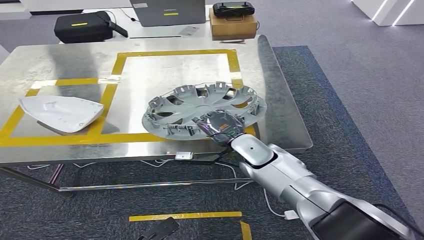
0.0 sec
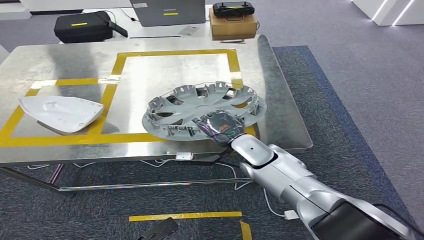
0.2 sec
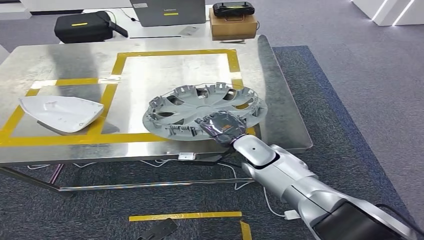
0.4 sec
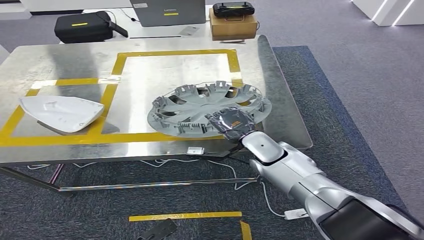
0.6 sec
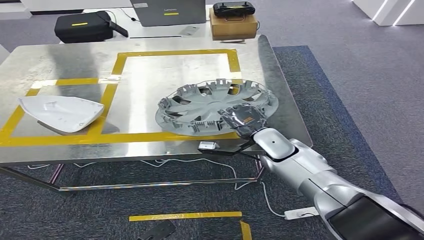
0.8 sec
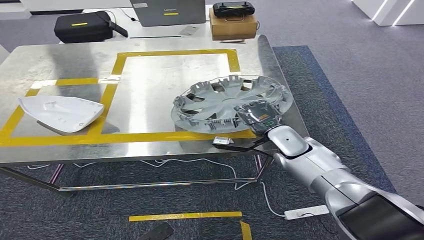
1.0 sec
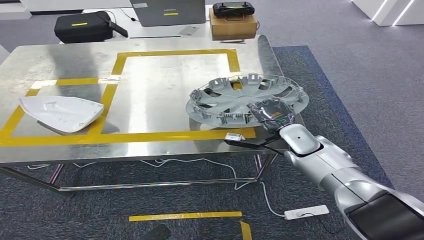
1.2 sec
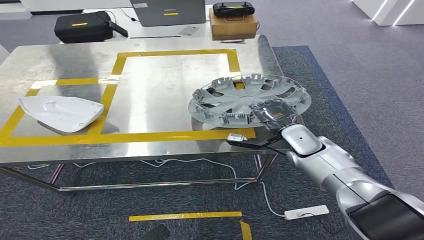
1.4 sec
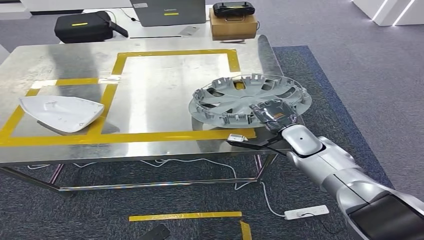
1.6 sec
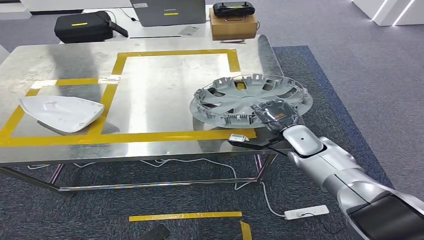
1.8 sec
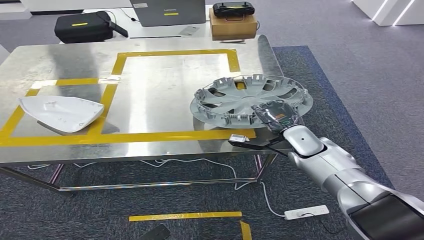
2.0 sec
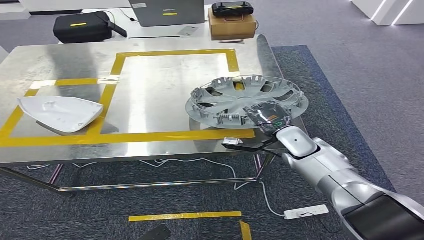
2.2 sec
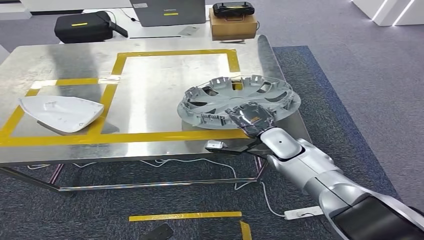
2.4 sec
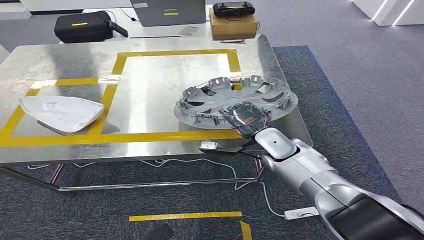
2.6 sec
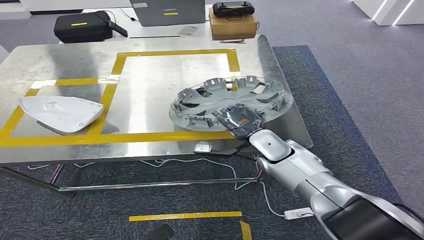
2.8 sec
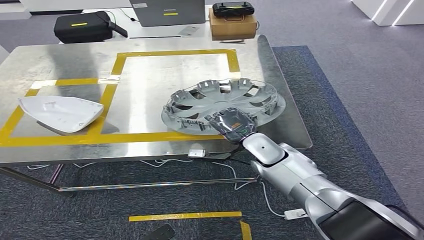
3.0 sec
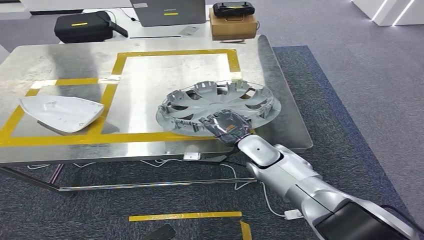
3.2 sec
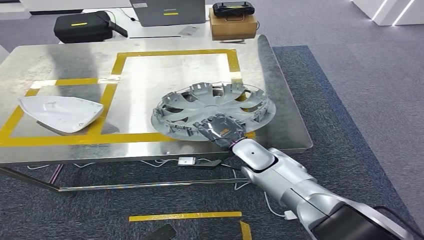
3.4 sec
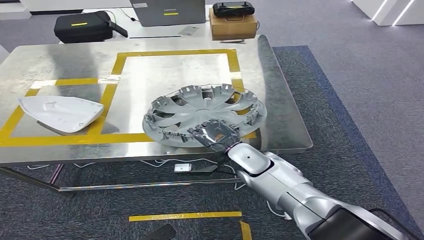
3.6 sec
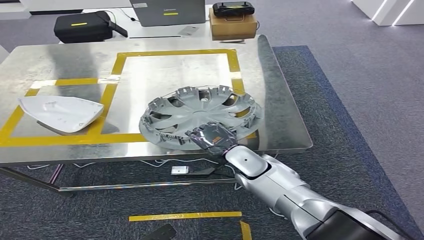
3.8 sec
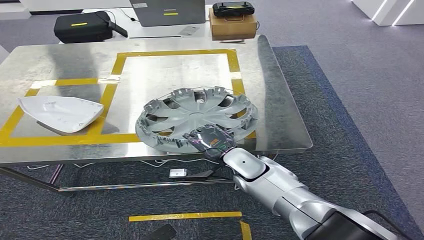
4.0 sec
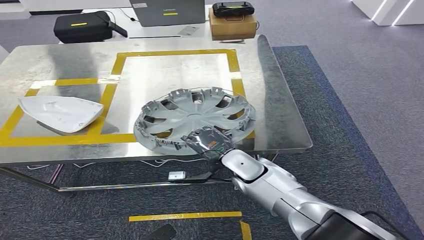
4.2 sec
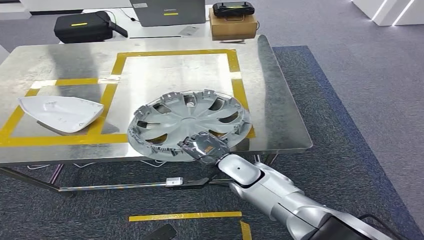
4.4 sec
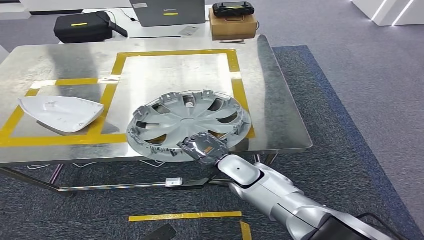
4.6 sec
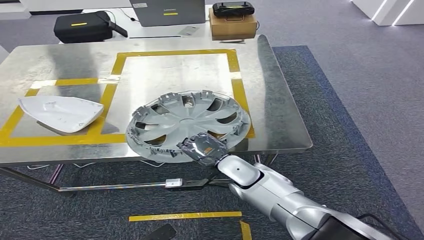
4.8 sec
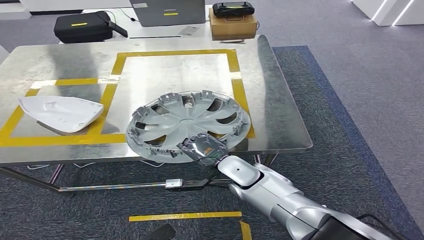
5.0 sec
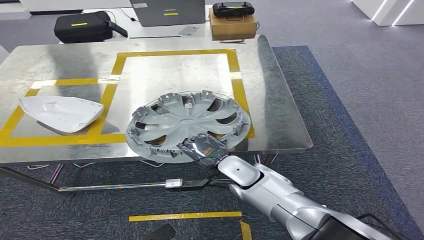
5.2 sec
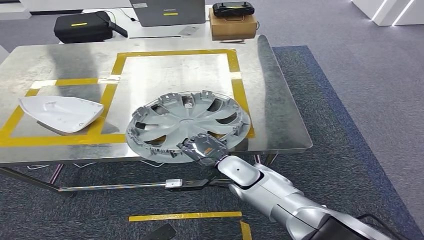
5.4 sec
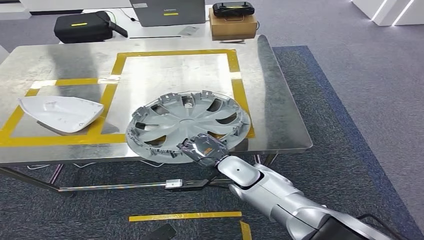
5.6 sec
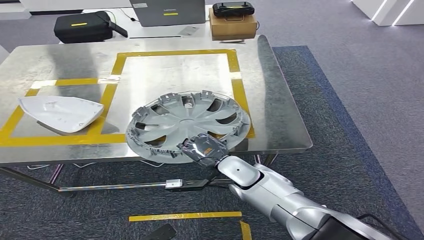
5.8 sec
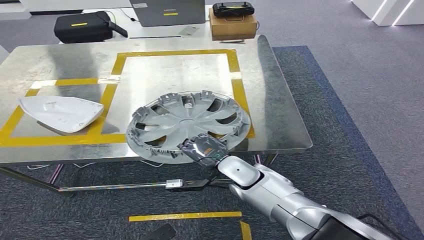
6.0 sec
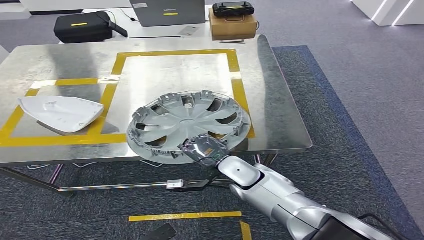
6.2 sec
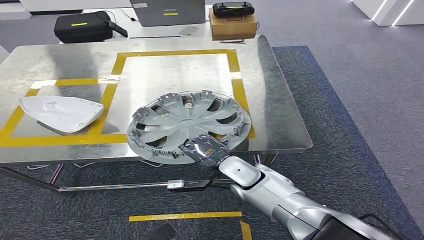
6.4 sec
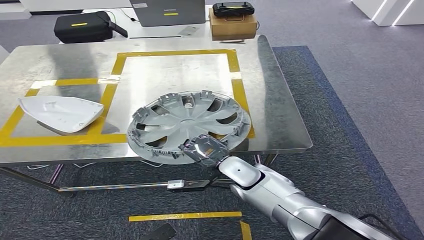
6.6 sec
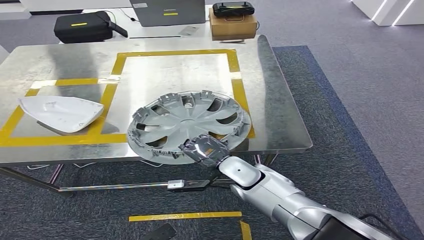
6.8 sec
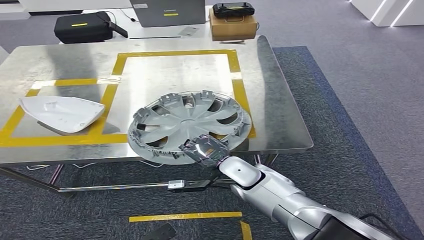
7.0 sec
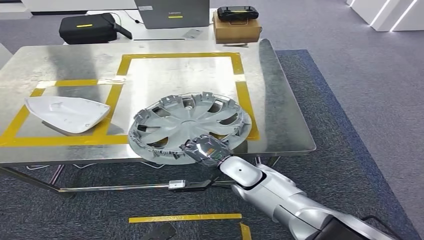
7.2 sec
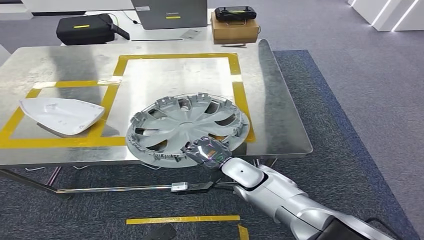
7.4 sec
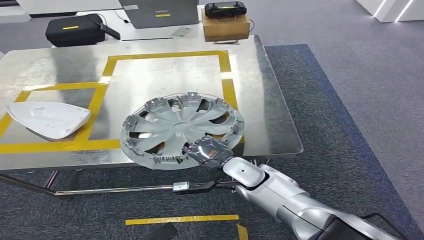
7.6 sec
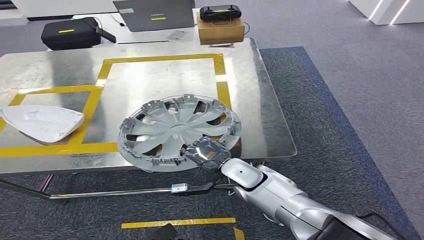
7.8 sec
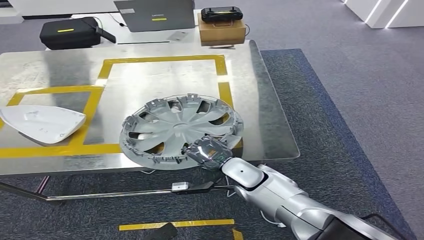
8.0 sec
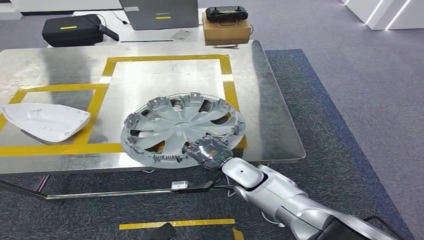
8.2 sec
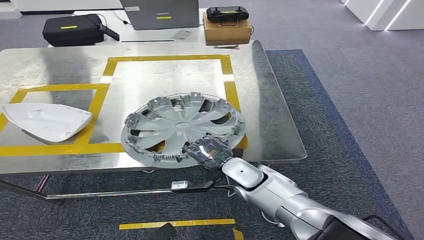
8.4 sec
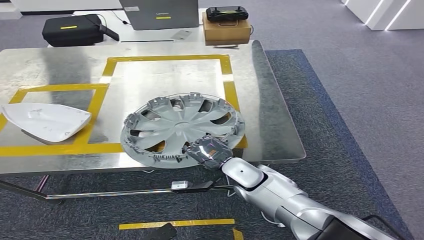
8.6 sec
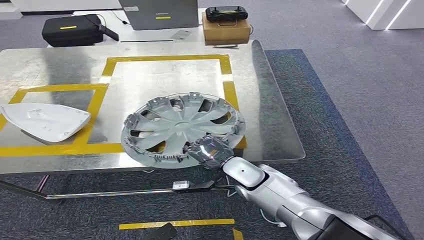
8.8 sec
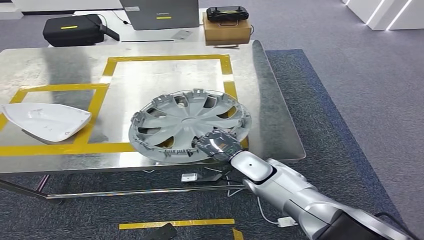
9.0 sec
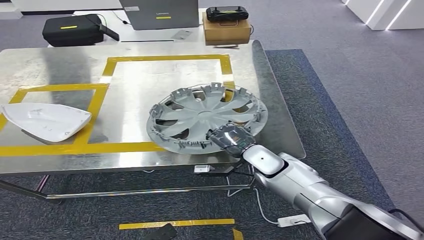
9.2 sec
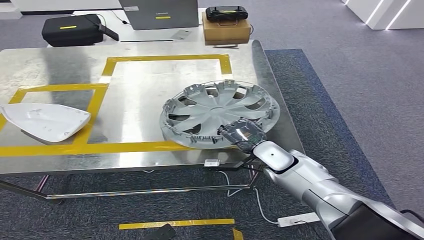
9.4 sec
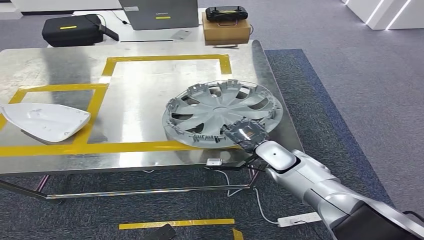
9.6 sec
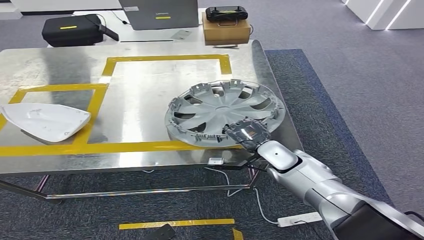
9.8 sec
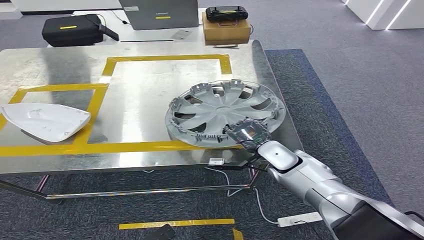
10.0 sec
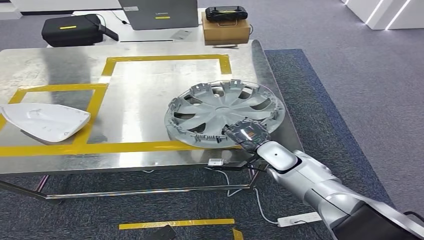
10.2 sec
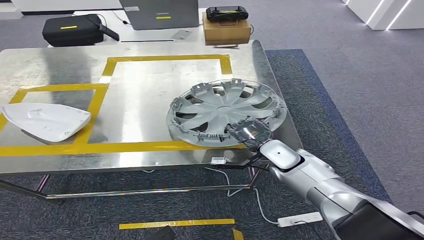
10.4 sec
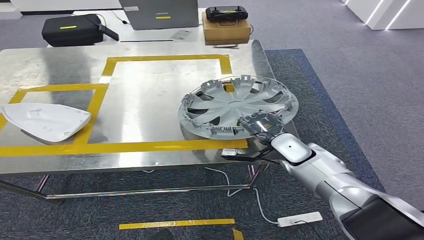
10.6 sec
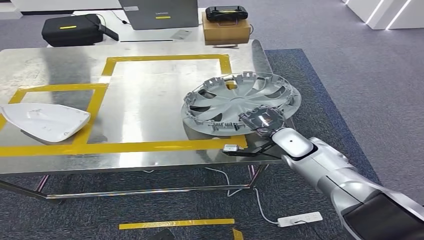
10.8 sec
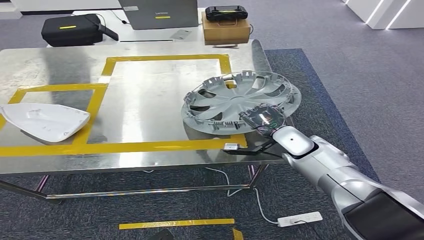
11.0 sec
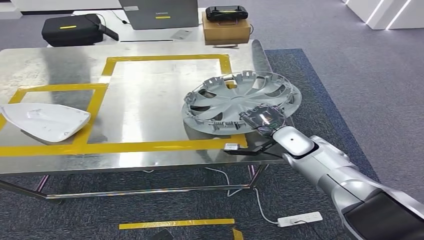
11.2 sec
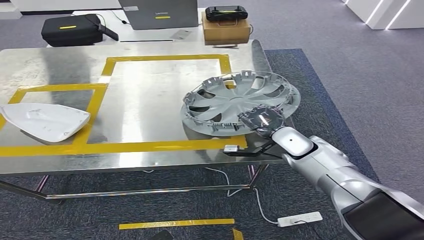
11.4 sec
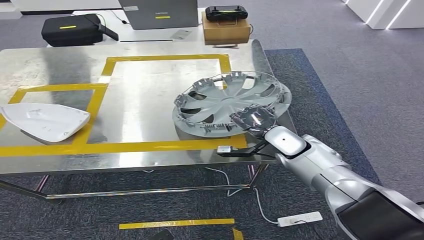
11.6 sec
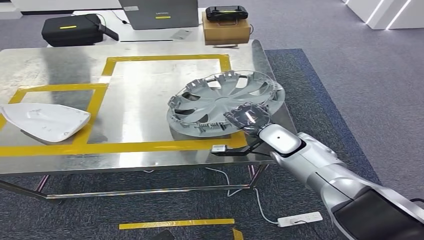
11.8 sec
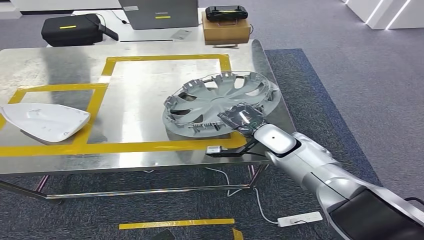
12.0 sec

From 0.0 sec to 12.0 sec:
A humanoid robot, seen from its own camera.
From 0.0 sec to 1.6 sec: The right hand goes some 10 cm to the right and forward.
From 1.6 sec to 3.0 sec: The right hand is displaced to the left by some 10 cm.
From 3.0 sec to 4.4 sec: The right hand moves backward, roughly 5 cm.
From 4.4 sec to 6.0 sec: Both hands stay about where they are.
From 9.0 sec to 10.4 sec: The right hand moves to the right, about 5 cm.
From 10.4 sec to 12.0 sec: The right hand ends up approximately 5 cm from where it was.

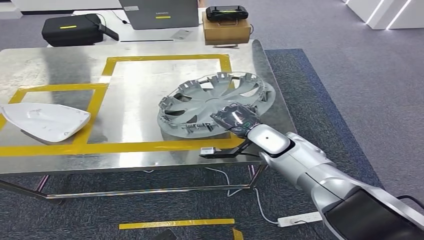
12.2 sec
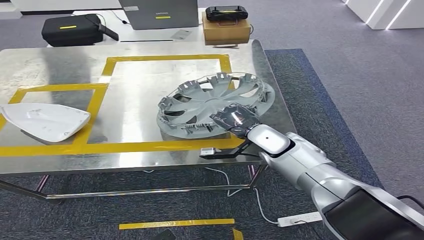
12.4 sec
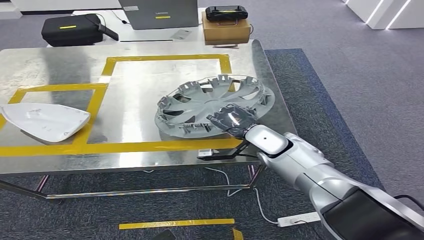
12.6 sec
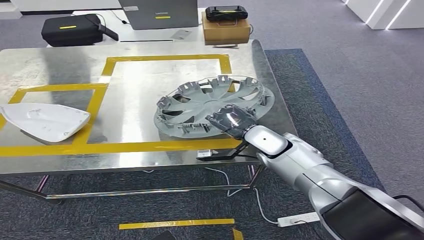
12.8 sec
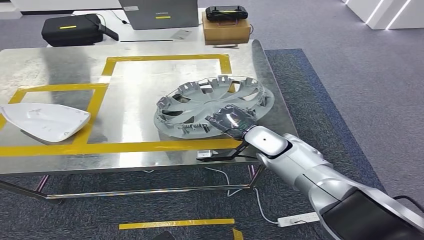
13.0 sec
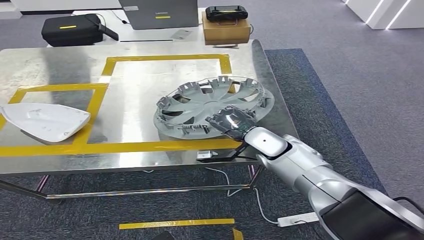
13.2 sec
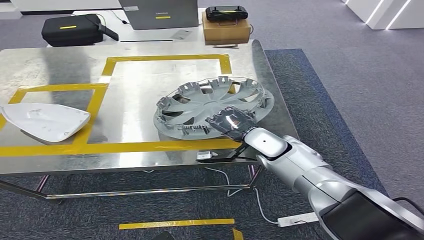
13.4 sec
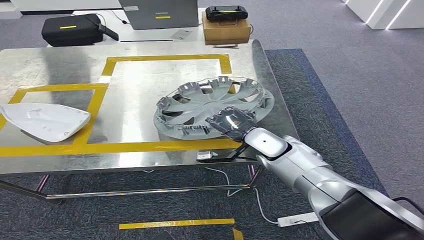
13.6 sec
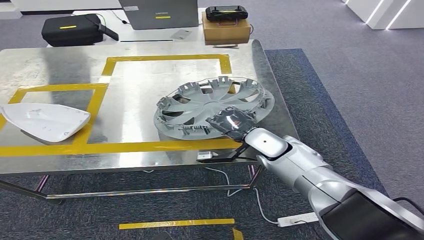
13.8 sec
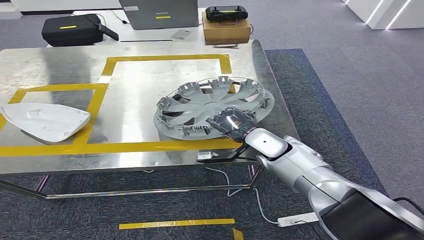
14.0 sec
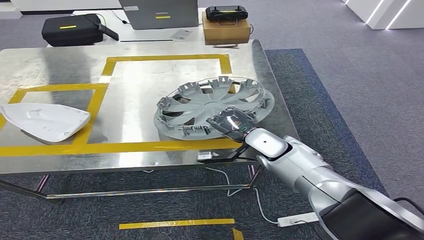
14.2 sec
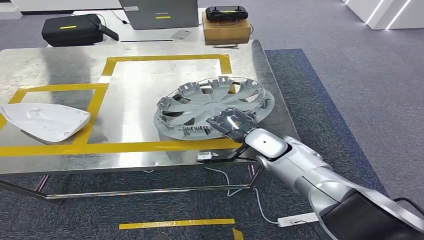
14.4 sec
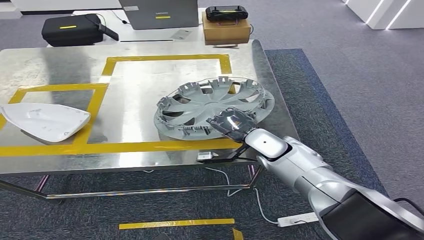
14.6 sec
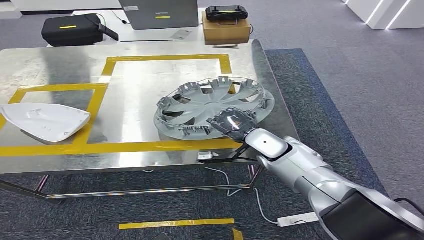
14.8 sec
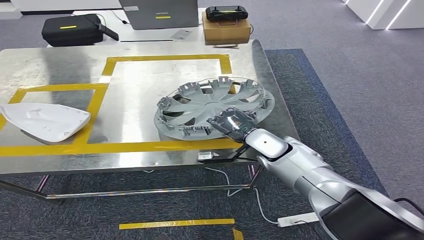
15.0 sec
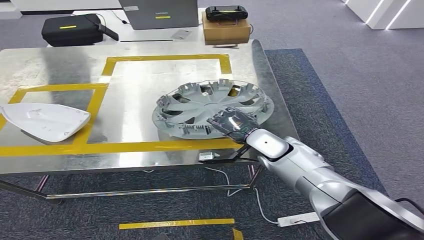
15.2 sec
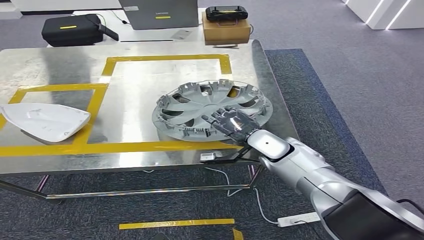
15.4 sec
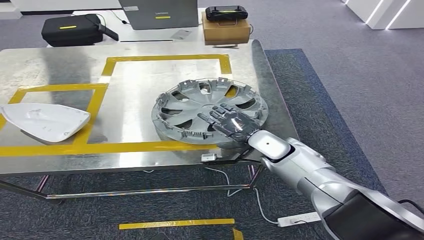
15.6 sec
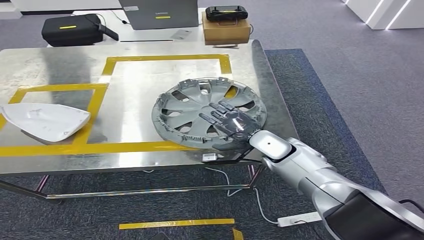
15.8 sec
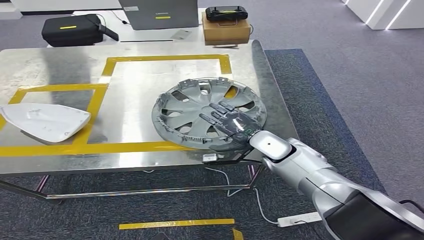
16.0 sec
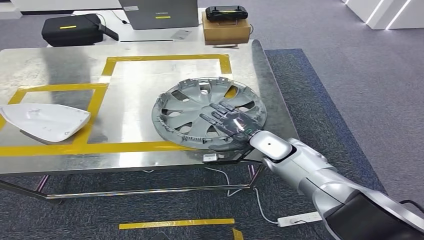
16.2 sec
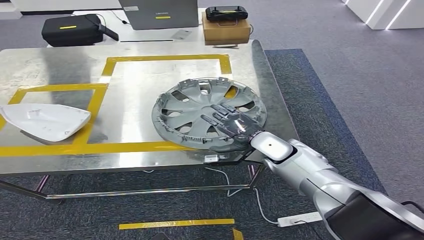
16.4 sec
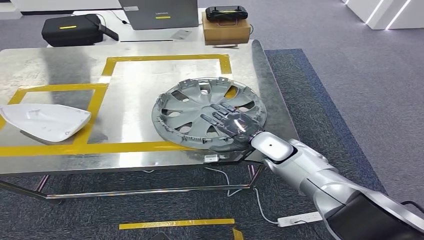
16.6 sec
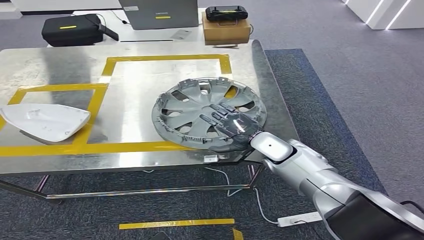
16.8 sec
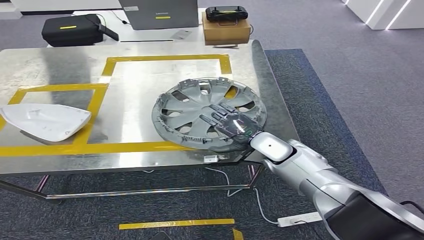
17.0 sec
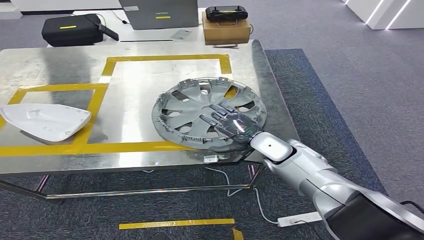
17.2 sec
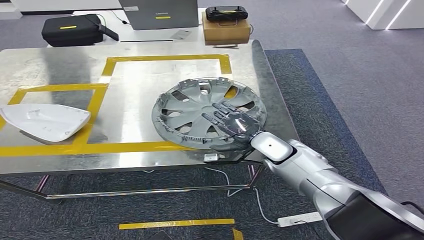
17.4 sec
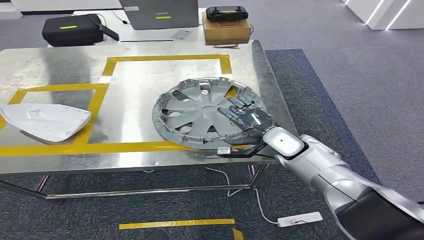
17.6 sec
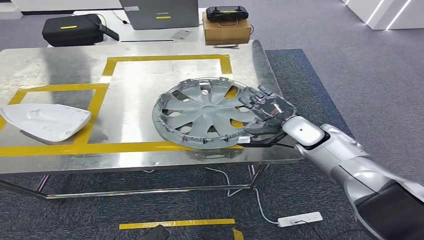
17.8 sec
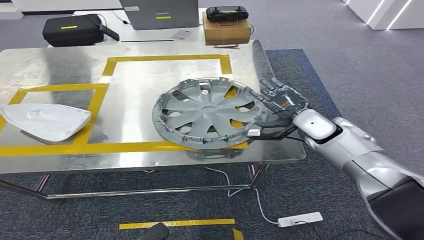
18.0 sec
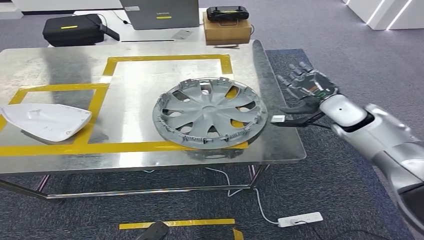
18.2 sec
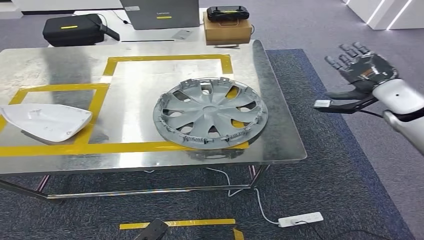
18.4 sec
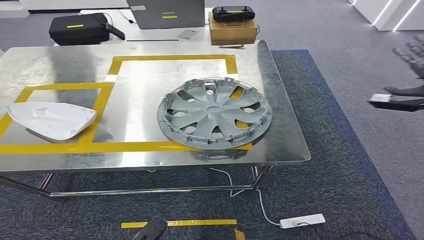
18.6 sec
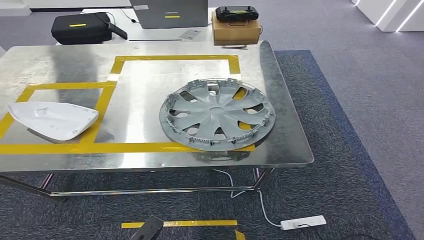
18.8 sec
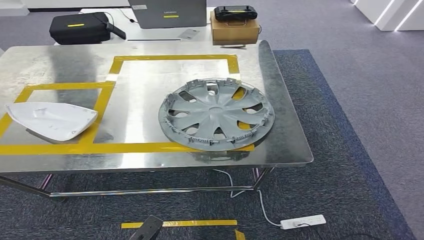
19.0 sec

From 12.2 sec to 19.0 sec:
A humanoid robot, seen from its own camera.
Step, from 12.2 sec to 18.6 sec: Insert the small component into the corresponding slot on the workbench.
From 12.2 sec to 13.6 sec: The two hands keep their place.
From 13.6 sec to 15.0 sec: There are only small adjustments of the hands.
From 15.0 sec to 16.2 sec: Both hands stay put.
From 16.2 sec to 17.6 sec: The hands make only small movements.
